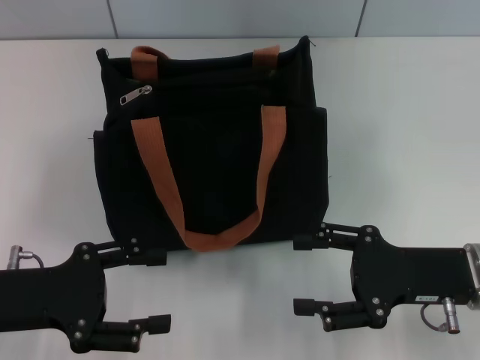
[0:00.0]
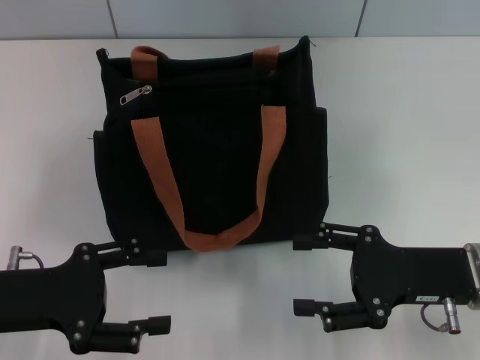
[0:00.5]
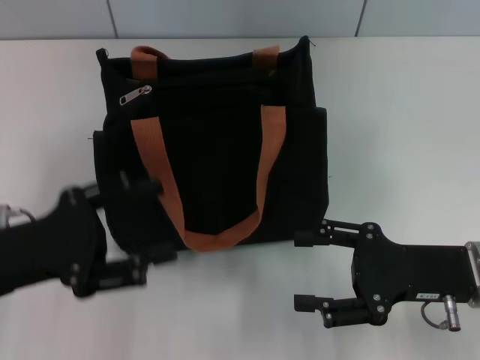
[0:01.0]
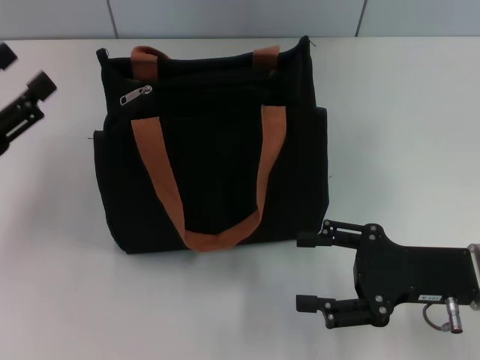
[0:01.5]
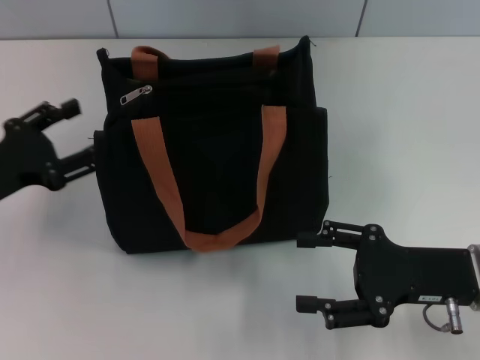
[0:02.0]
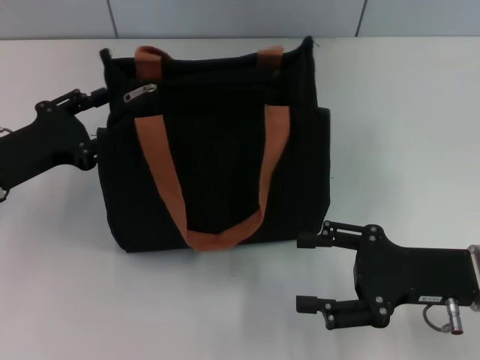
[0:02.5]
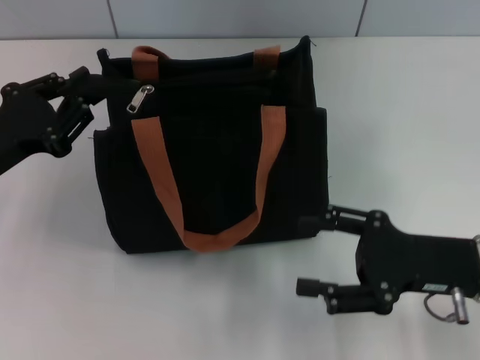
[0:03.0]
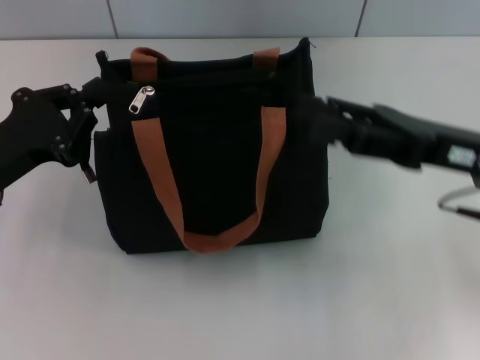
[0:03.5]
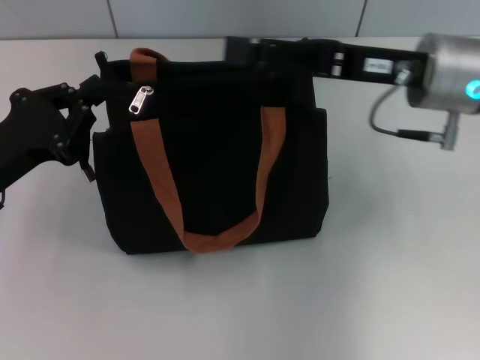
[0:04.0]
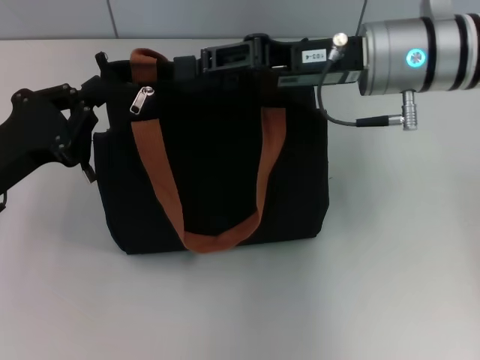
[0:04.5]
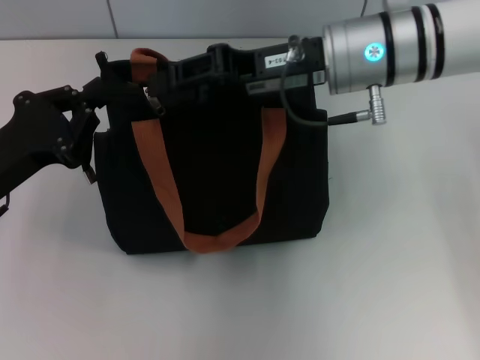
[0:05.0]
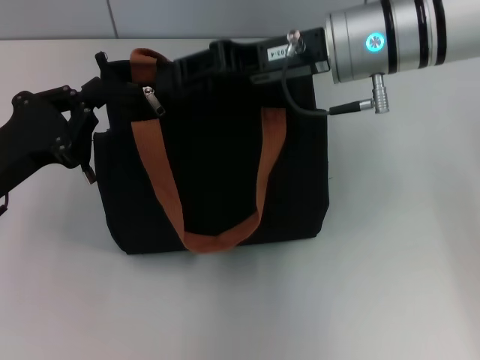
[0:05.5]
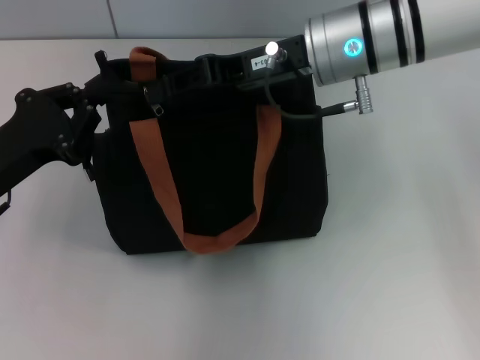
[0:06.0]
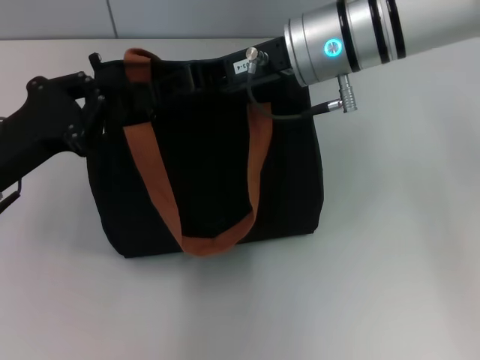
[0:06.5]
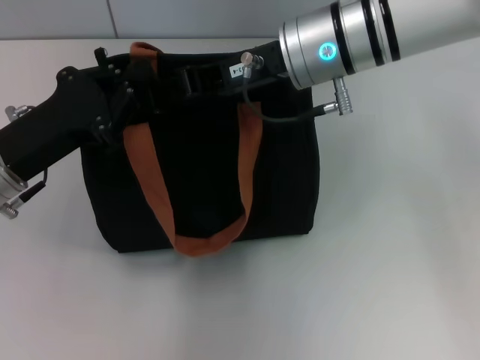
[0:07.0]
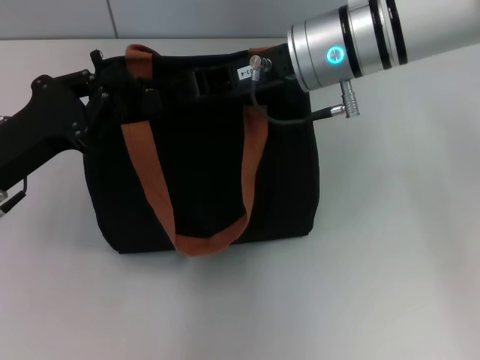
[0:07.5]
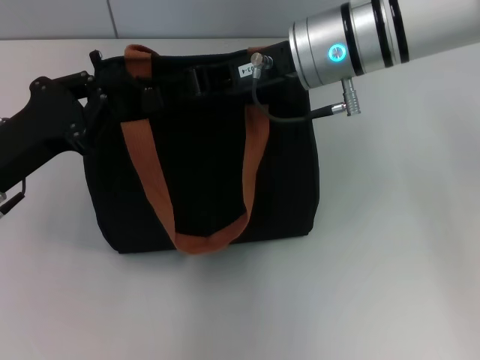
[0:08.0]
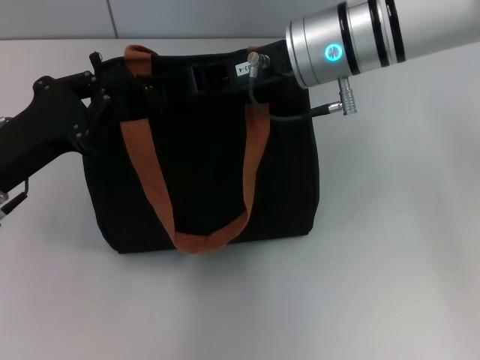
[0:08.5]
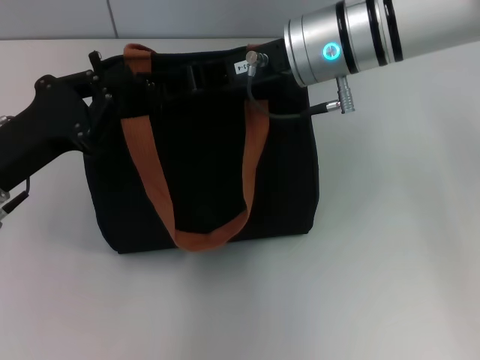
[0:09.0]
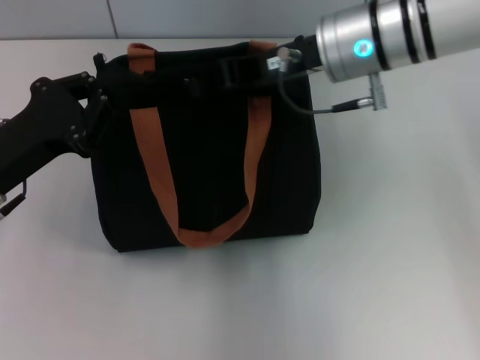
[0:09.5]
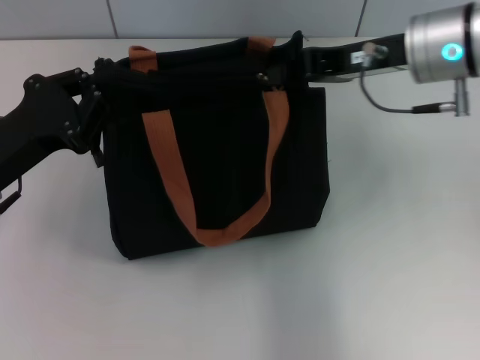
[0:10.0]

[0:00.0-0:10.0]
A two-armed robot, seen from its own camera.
0:00.0 to 0:02.0: The left gripper heads forward, covering approximately 5 cm.
0:02.0 to 0:04.0: The left gripper closes up. Meanwhile the right gripper heads forward, upward and to the left, covering some 20 cm.
0:04.0 to 0:06.0: The right gripper shifts some 10 cm to the left, and closes up.
0:06.0 to 0:08.0: The grippers move only a little.
0:08.0 to 0:10.0: The right gripper is displaced to the right by approximately 10 cm, and closes its fingers.

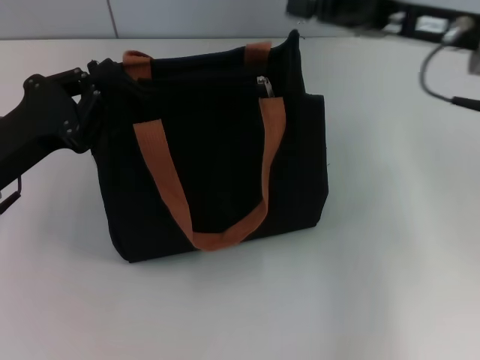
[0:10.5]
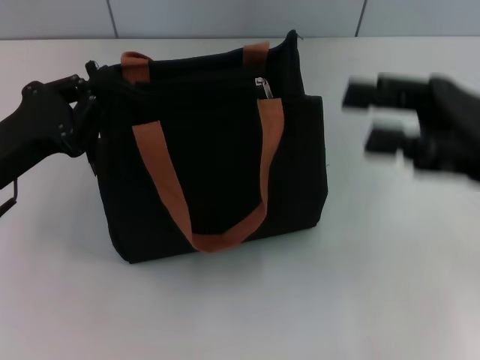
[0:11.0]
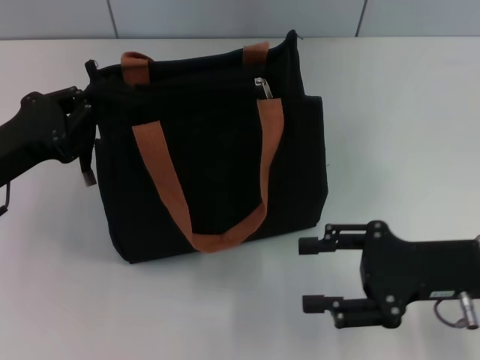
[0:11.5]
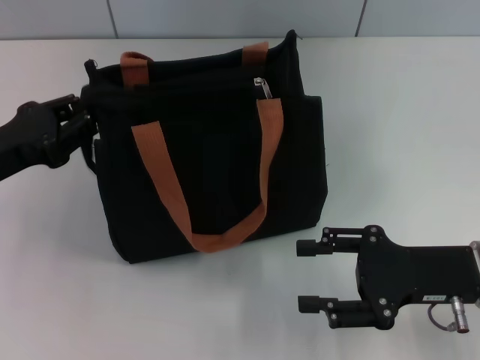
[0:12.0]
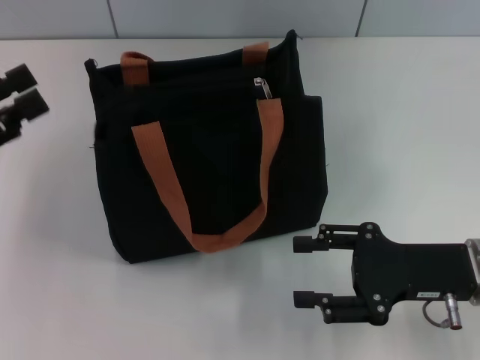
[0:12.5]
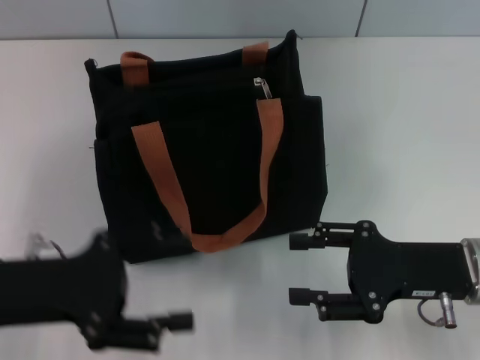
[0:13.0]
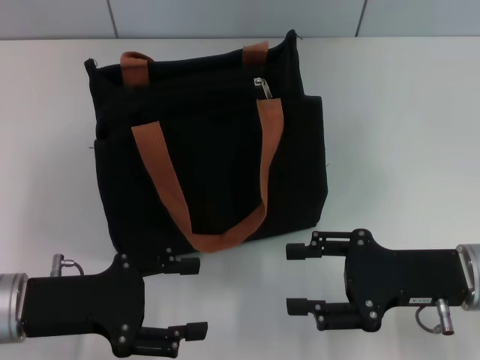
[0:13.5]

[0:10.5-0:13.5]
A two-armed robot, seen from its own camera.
Step, 0:10.5 to 0:12.0: Grab the zipper with your left hand.
0:10.5 to 0:12.0: The right gripper is displaced downward and backward by about 15 cm, and opens up.
0:12.0 to 0:13.5: The left gripper travels backward and to the right by approximately 10 cm, and opens.
